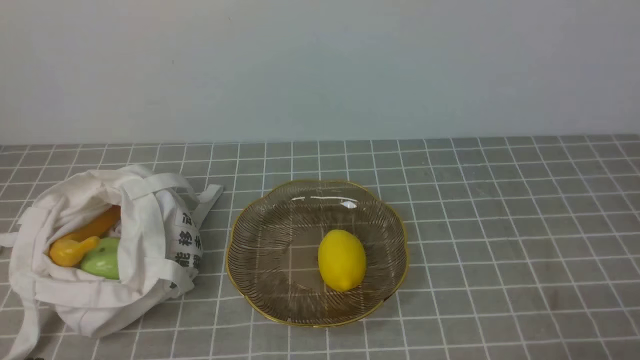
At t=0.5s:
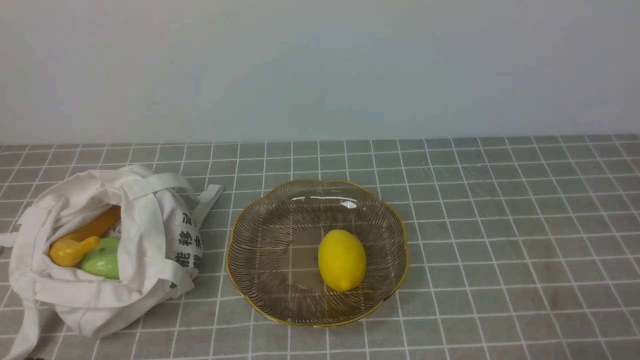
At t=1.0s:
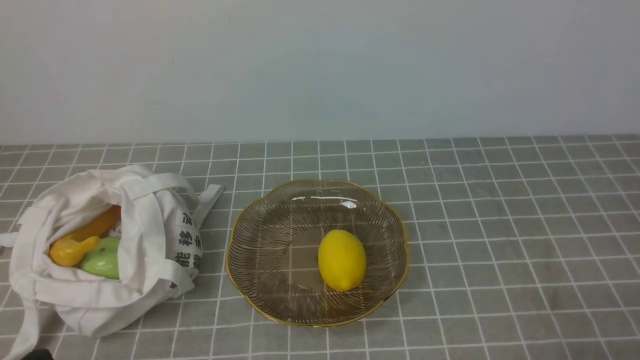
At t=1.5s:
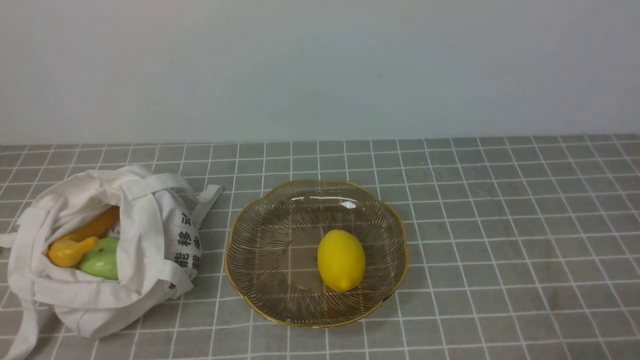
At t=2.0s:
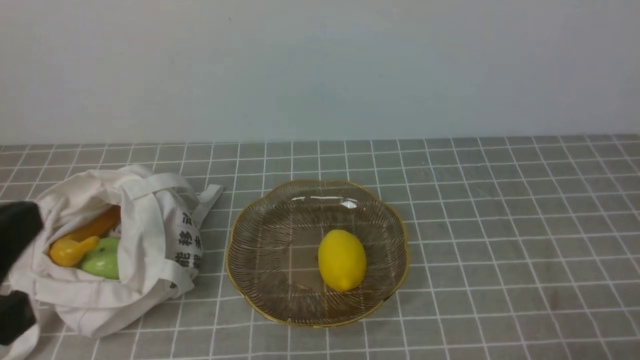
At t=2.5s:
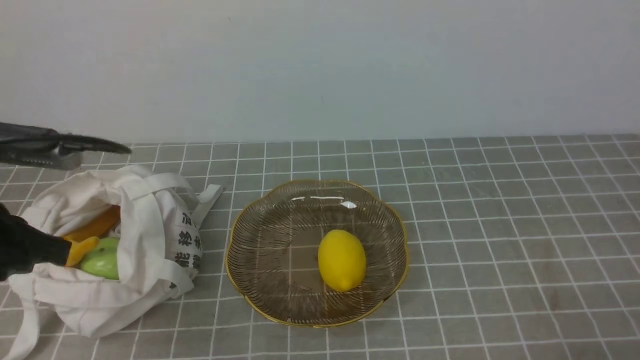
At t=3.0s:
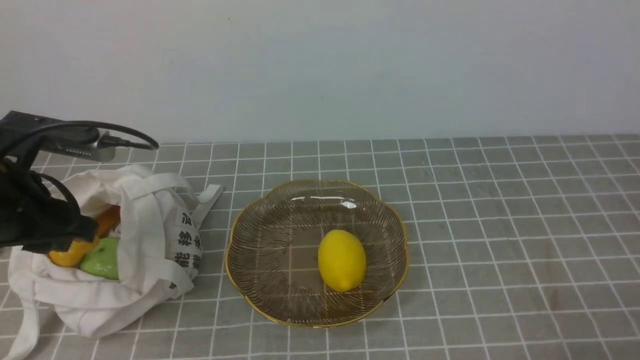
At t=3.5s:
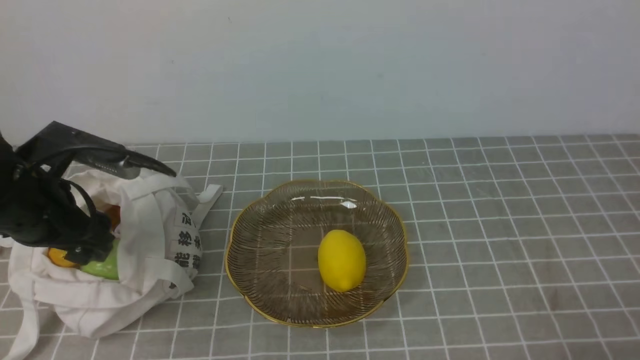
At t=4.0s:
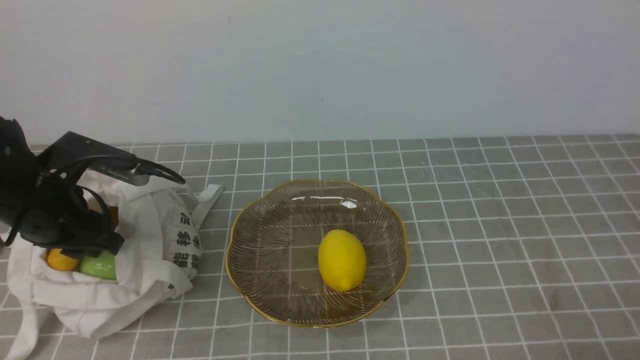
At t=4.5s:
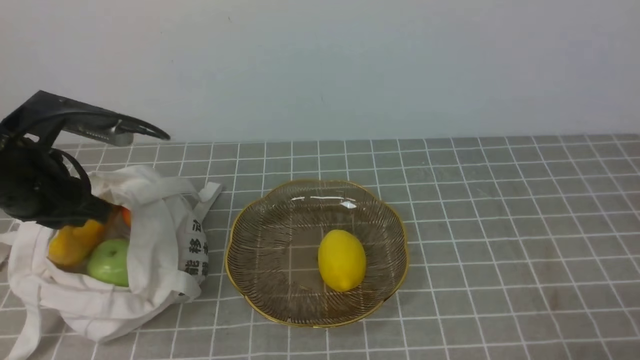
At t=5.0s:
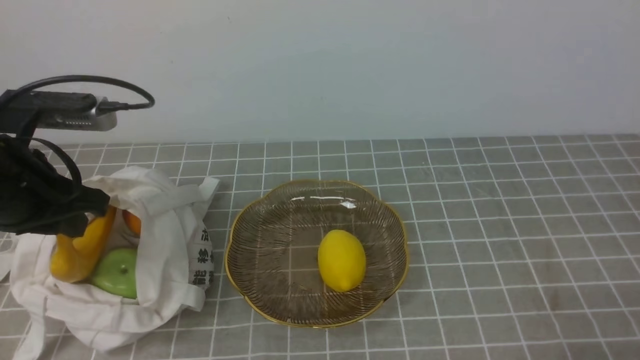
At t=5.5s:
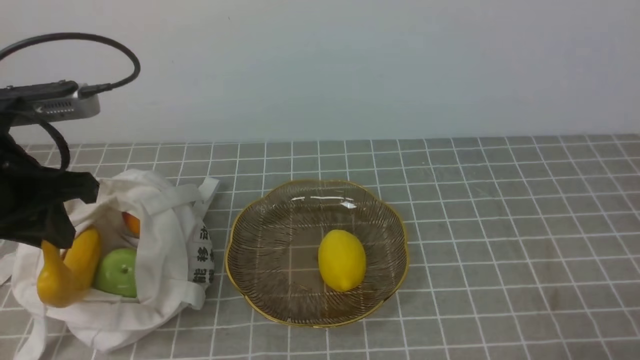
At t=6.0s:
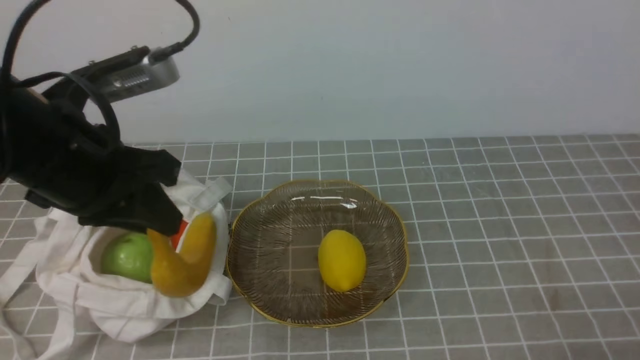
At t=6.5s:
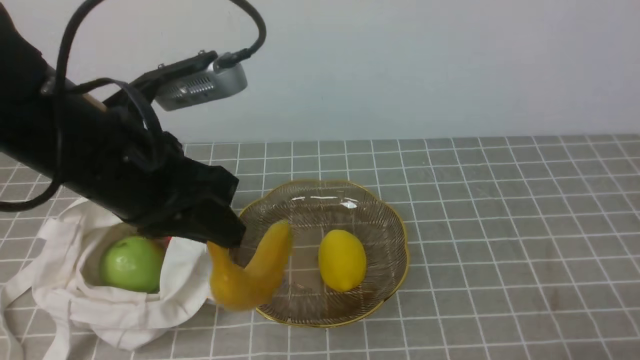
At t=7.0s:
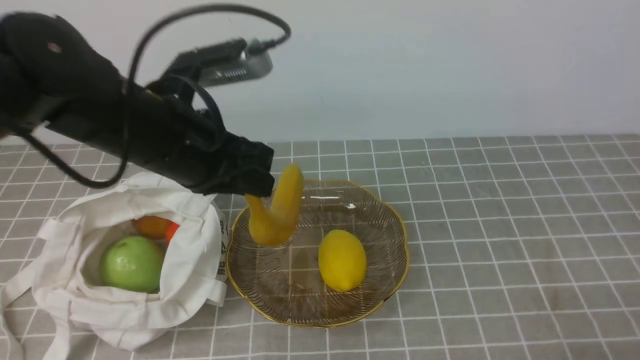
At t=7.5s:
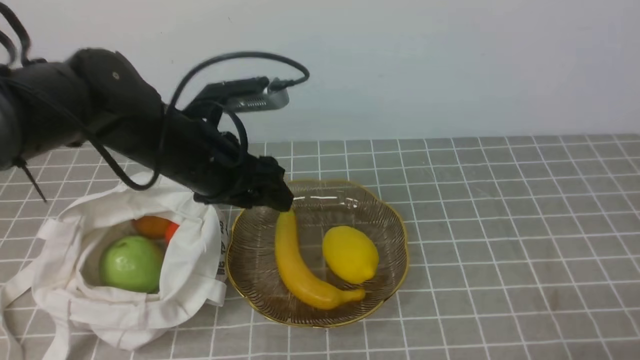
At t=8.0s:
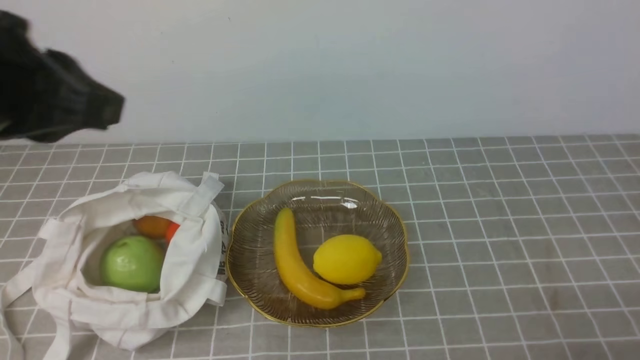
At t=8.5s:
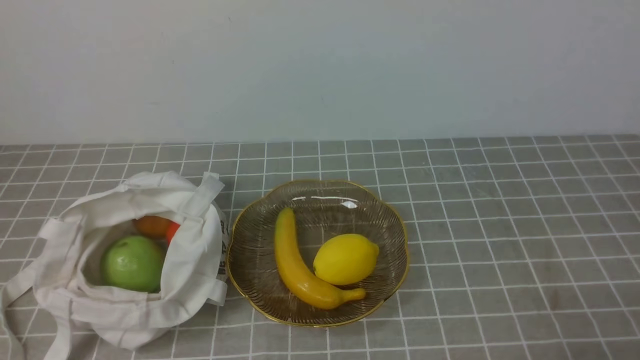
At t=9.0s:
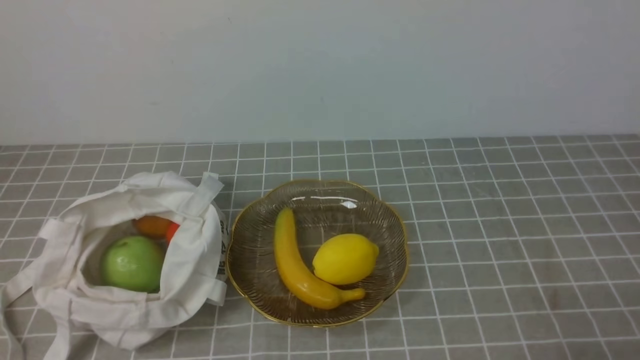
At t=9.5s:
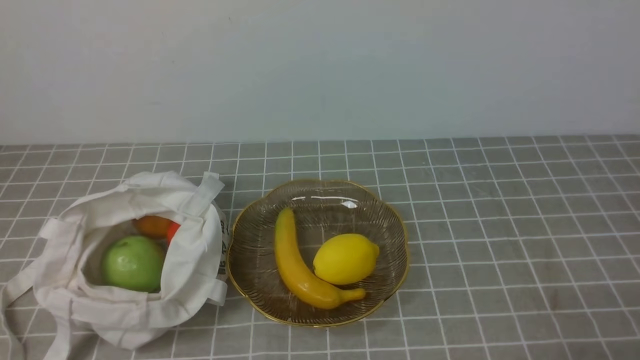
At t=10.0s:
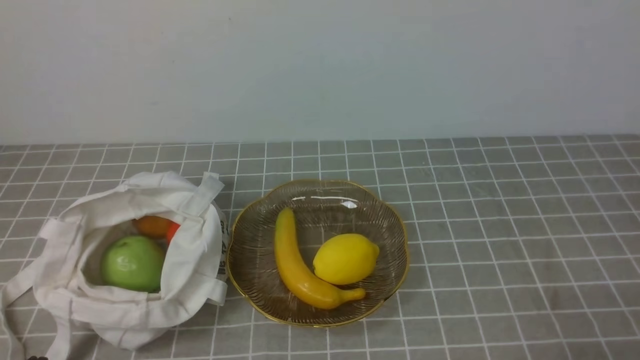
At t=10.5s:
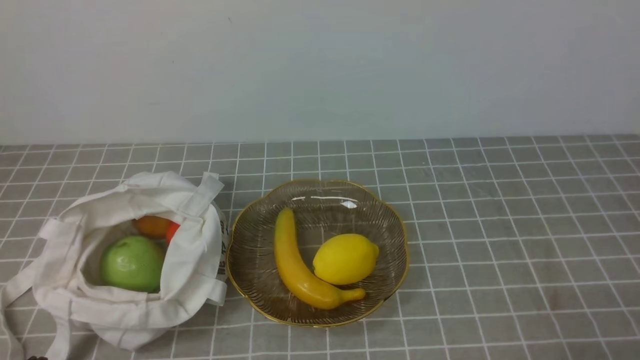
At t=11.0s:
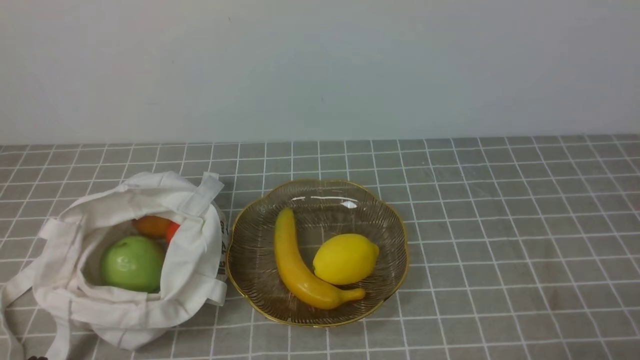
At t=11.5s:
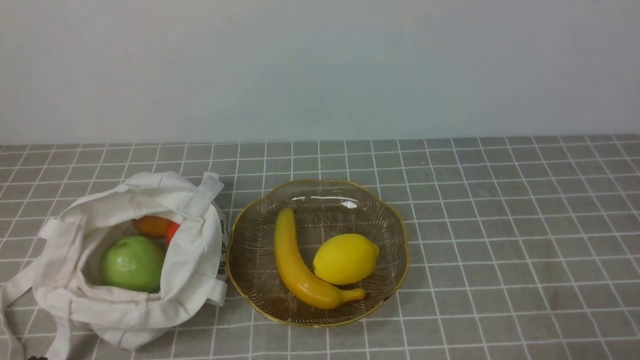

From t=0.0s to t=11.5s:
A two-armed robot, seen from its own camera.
Step, from t=0.0s to t=4.0s: use the left arm to grab a banana from the bag.
Step, from t=4.5s to t=7.0s: use the left arm to put the banana into the empty plate on the right.
From t=0.0s to t=2.0s: The left gripper shifts about 15 cm upward.
From t=2.0s to t=4.0s: The left gripper travels forward and downward by approximately 25 cm, and opens its fingers.
From t=4.0s to t=6.0s: The left gripper travels upward, to the right and backward by about 15 cm.
From t=6.0s to t=7.5s: The left gripper shifts about 10 cm forward, to the right and downward, and opens.
From t=7.5s to t=9.5s: The left gripper is displaced backward by approximately 30 cm, and closes its fingers.

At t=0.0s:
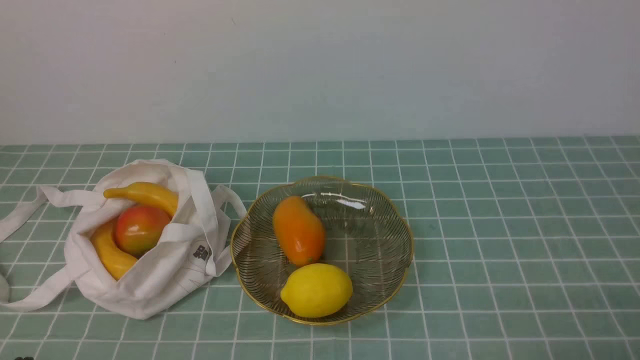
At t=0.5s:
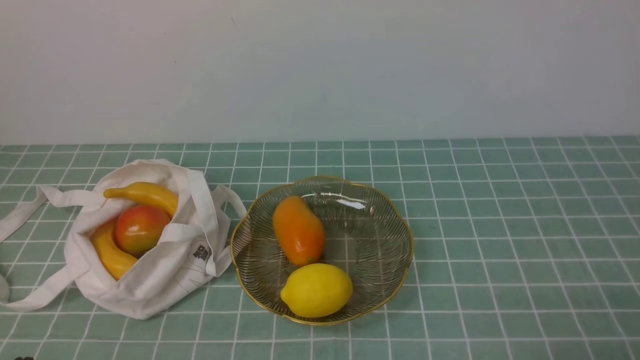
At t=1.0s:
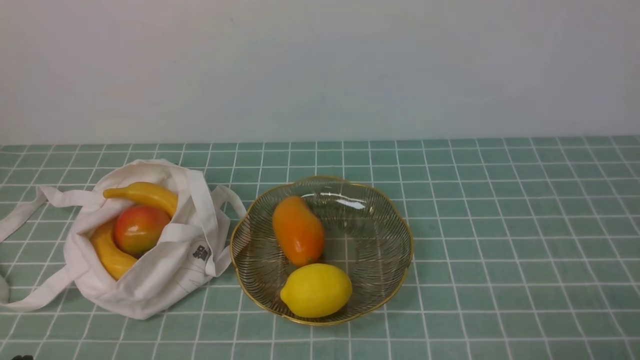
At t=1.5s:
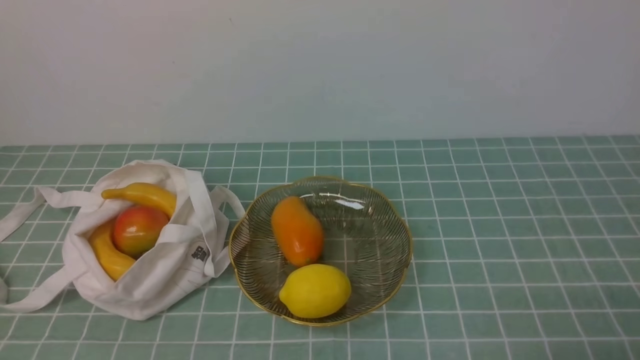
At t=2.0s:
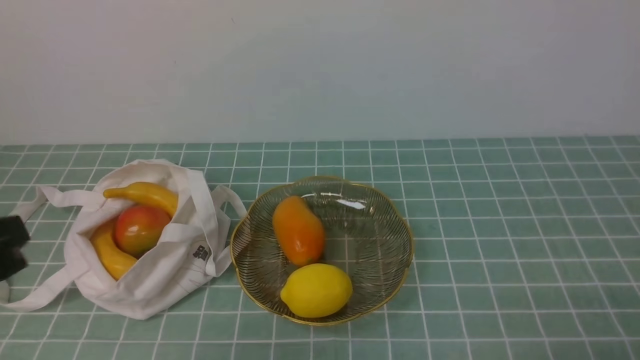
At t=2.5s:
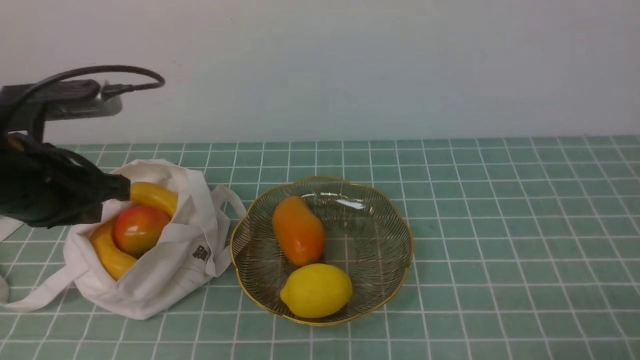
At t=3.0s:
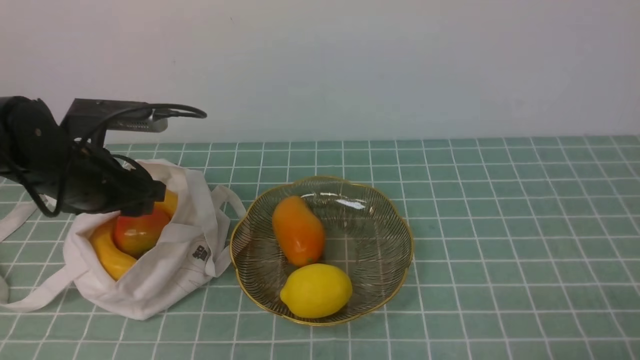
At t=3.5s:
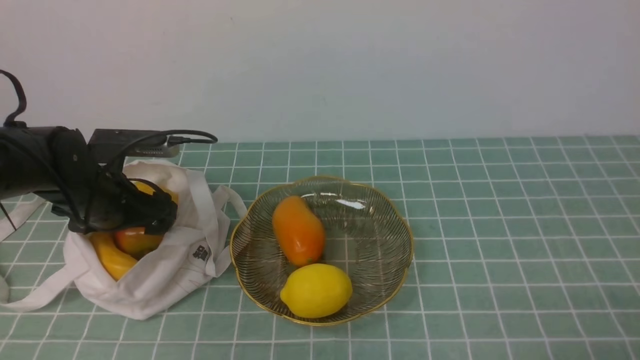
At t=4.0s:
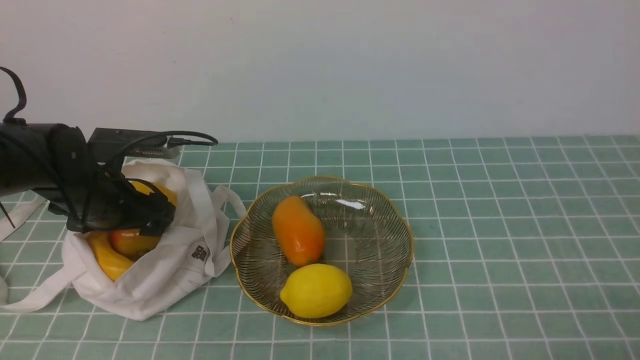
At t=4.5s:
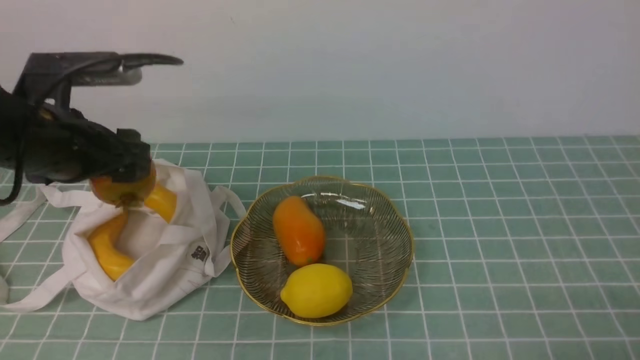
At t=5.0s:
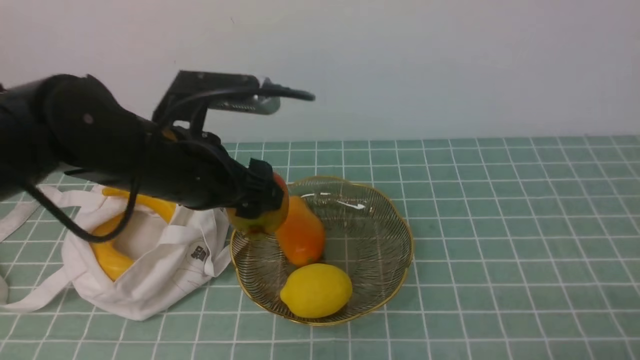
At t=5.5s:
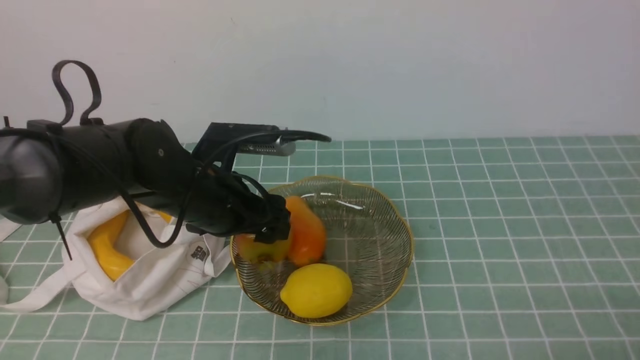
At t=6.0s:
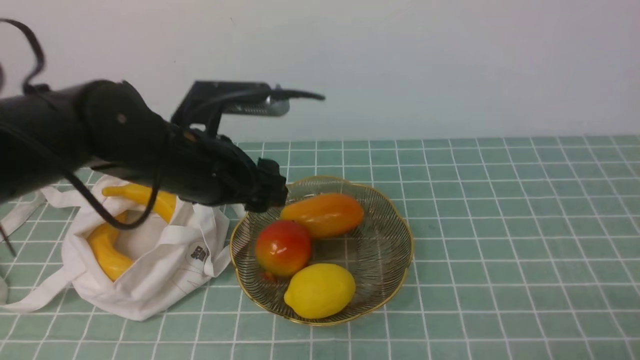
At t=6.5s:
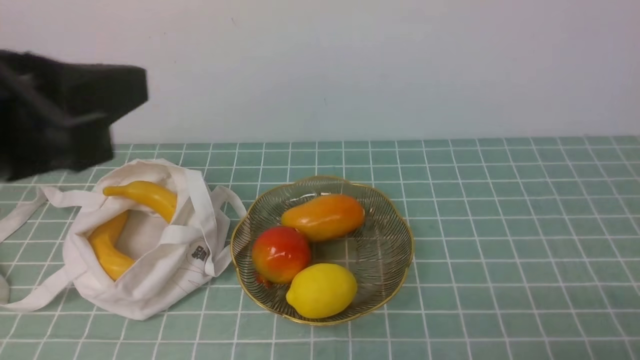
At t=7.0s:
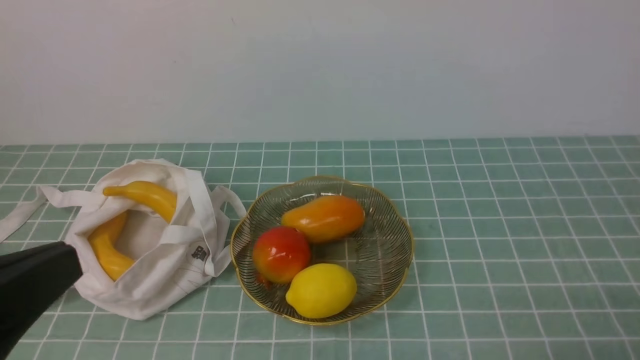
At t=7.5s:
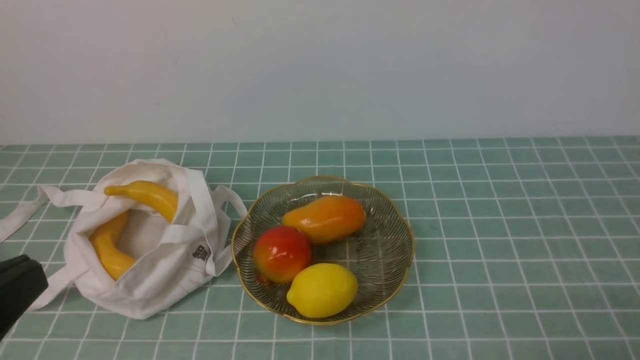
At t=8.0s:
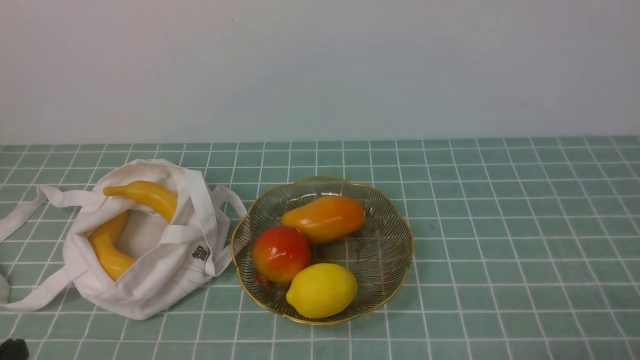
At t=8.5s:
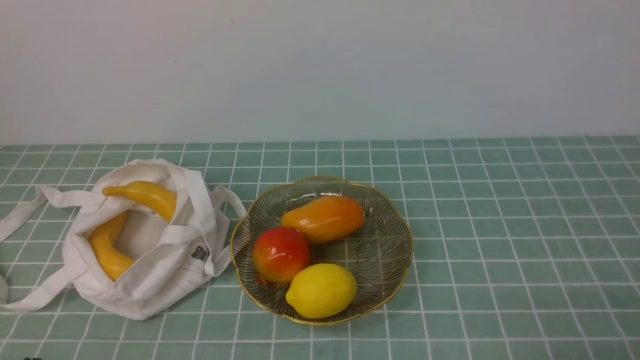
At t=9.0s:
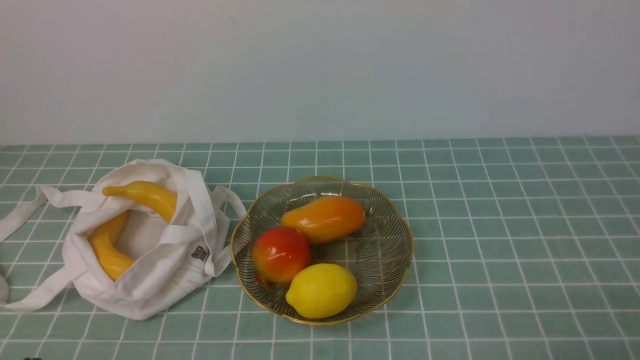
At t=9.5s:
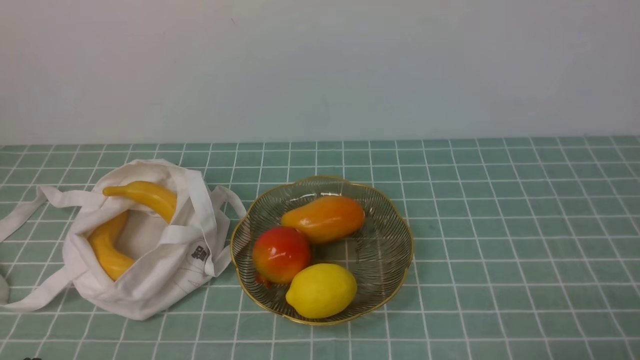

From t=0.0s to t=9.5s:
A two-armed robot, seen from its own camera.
Step, from t=0.0s to t=4.0s: use the left arm to grab a pomegranate from the bag.
Step, from t=4.5s to t=5.5s: use the left arm to put the pomegranate into the empty plate on the right.
From t=2.0s to t=4.0s: The left gripper travels forward and downward by approximately 30 cm, and opens its fingers.
From t=4.0s to t=5.5s: The left gripper moves to the right, roughly 15 cm.
From t=5.5s to t=7.5s: The left gripper travels backward and upward by roughly 30 cm, and closes.
From t=7.5s to t=9.5s: The left gripper heads downward, covering some 15 cm.
